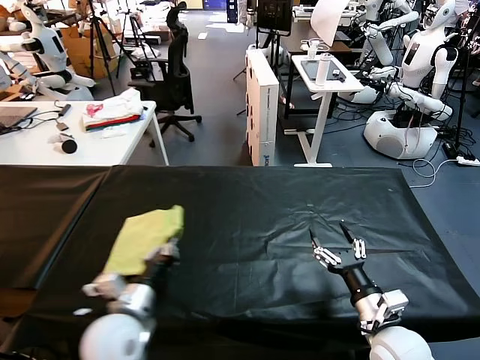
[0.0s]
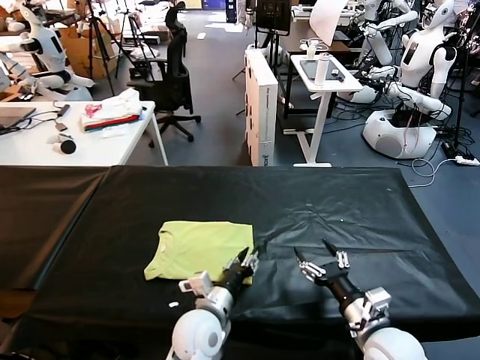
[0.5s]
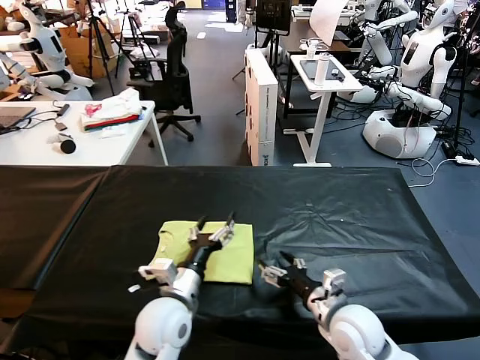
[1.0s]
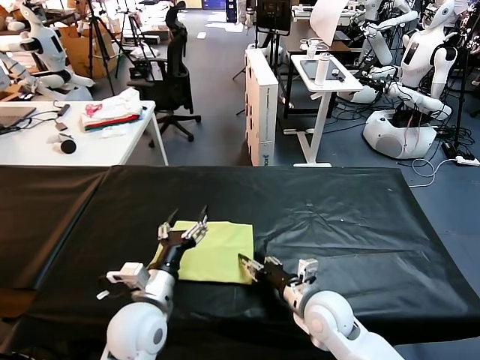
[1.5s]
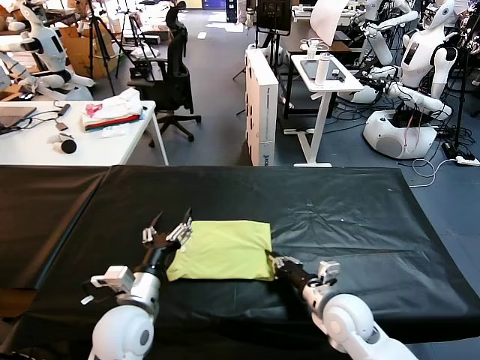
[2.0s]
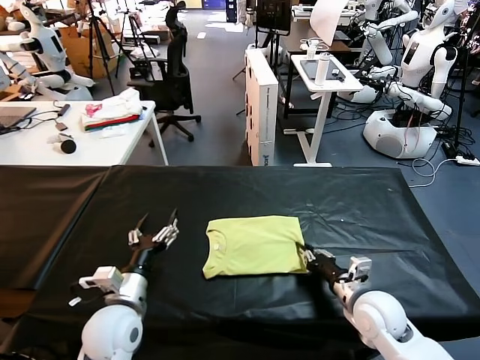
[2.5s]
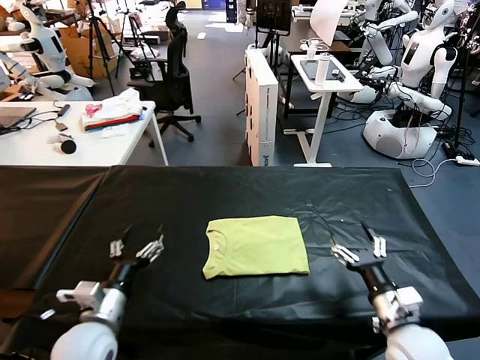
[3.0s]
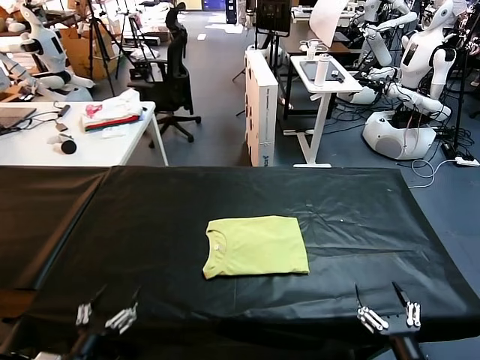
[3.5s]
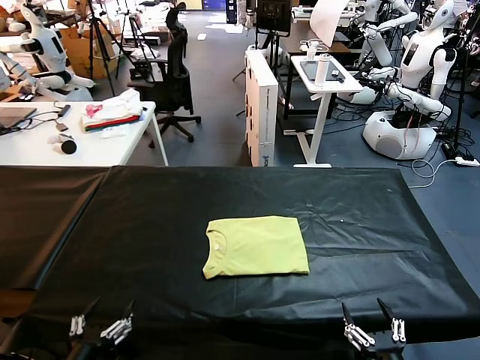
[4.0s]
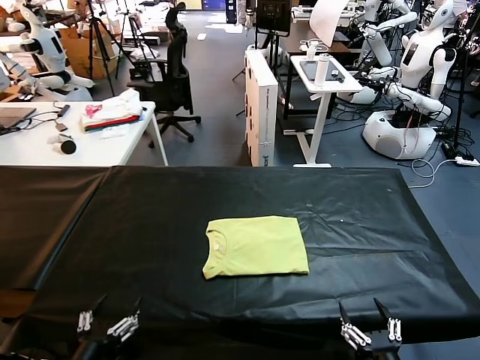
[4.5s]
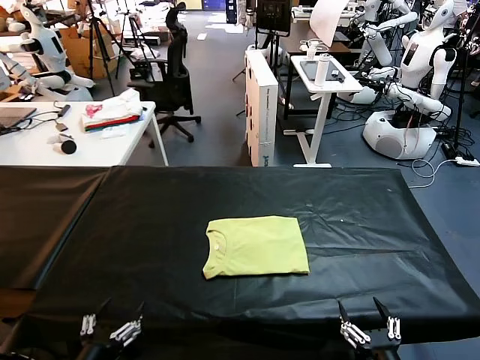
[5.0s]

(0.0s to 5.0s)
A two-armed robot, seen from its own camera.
Task of the whole recording: fold and organize the clothes.
Step, 1.0s - 2.5s: Drag the clothes to the center of the table.
0.0s - 2.5s: The left gripper reaches about 15 cm to the right, then returns, and opens. The right gripper heads forward, covering roughly 5 cm, goes to the left and returns, roughly 10 cm each way, and closes.
2.5s - 5.0s: The two grippers go about 20 cm backward. The right gripper opens up.

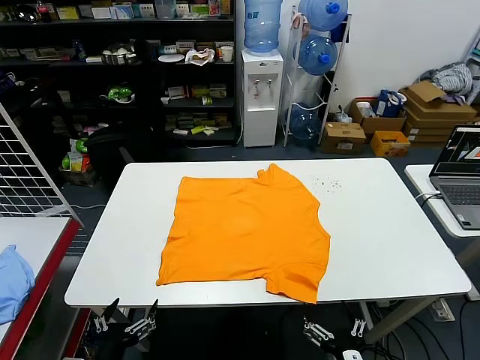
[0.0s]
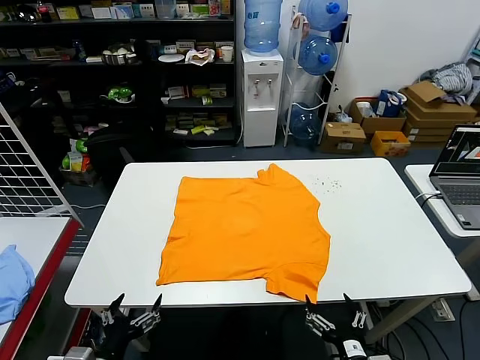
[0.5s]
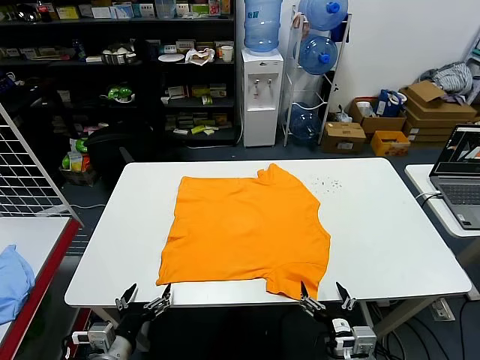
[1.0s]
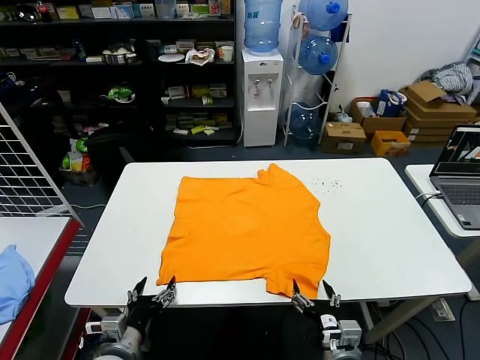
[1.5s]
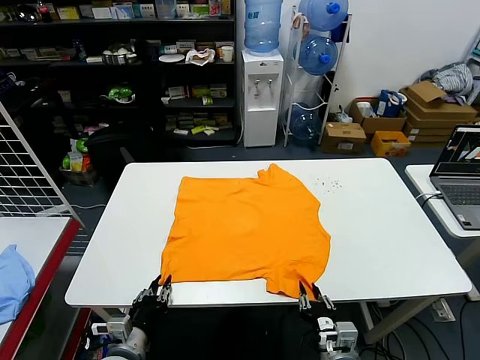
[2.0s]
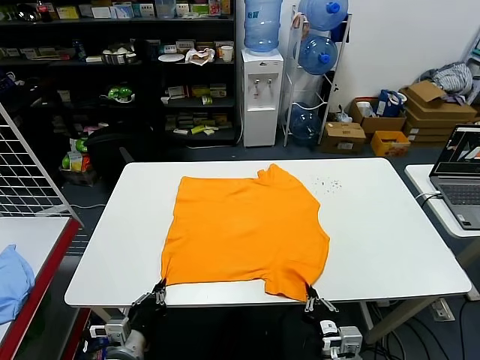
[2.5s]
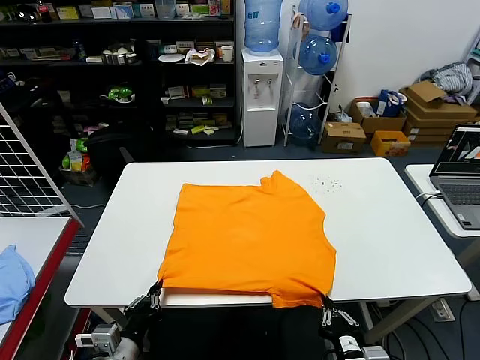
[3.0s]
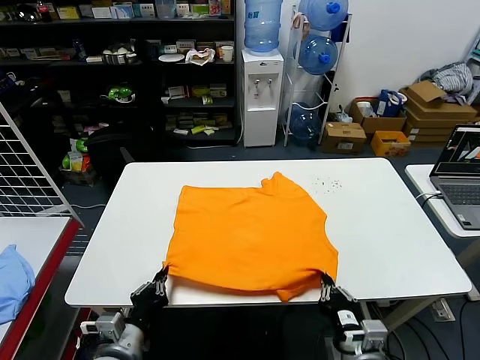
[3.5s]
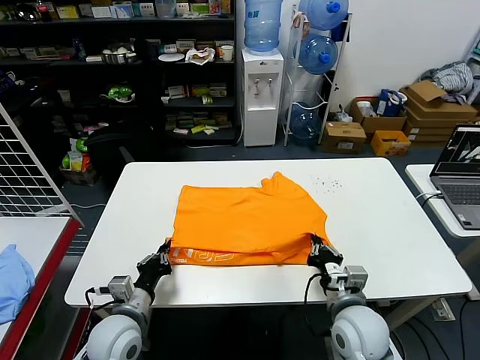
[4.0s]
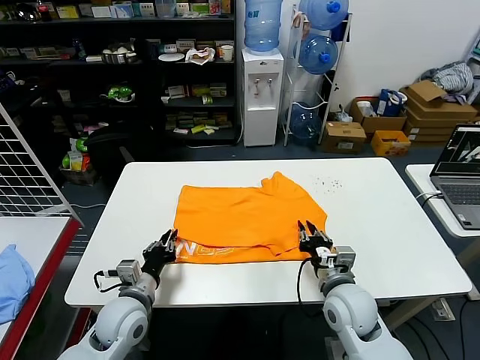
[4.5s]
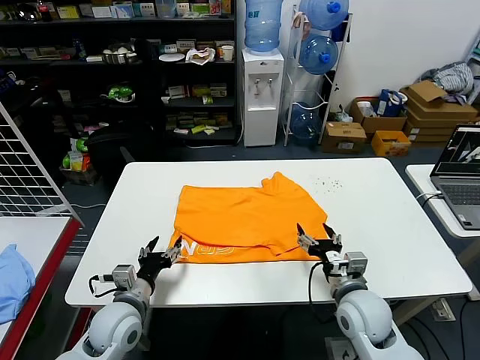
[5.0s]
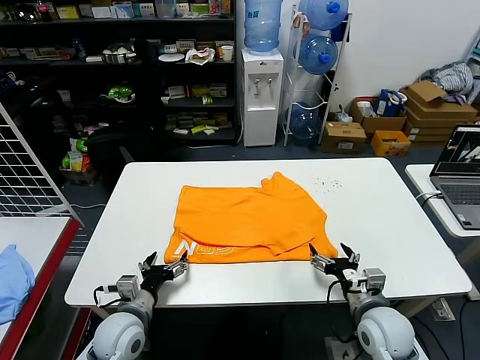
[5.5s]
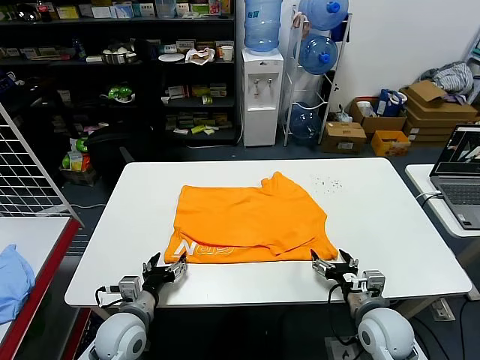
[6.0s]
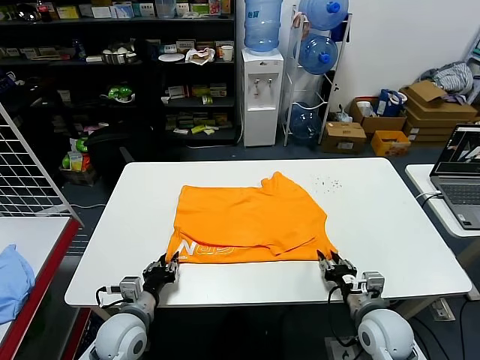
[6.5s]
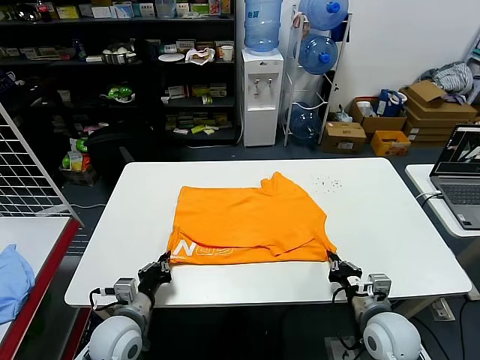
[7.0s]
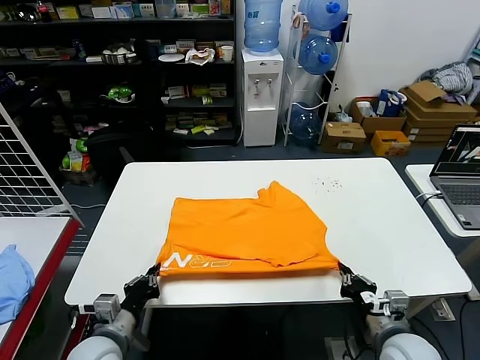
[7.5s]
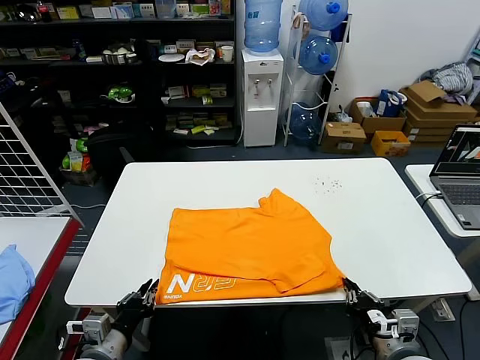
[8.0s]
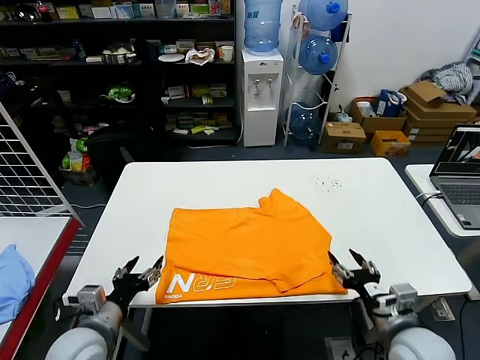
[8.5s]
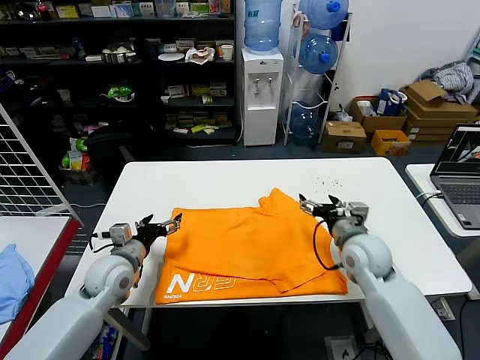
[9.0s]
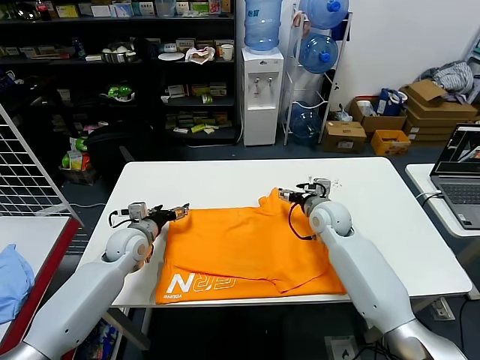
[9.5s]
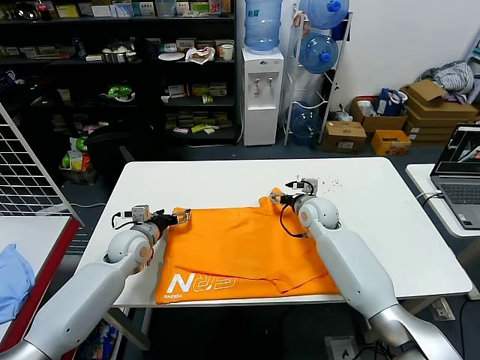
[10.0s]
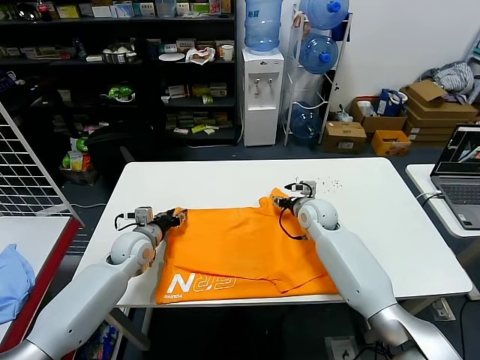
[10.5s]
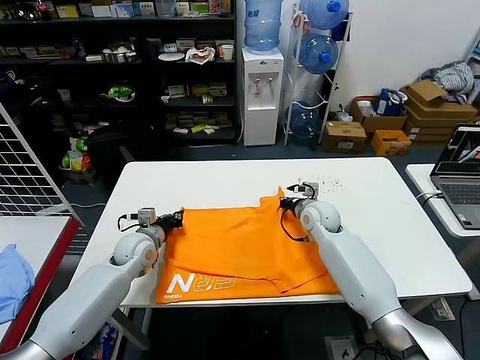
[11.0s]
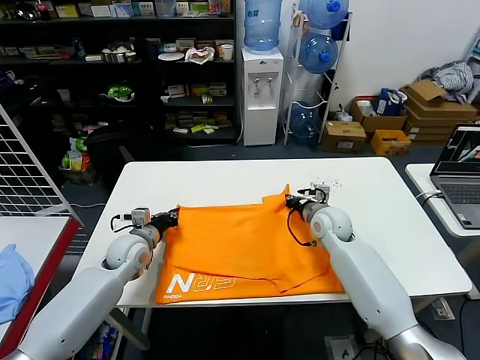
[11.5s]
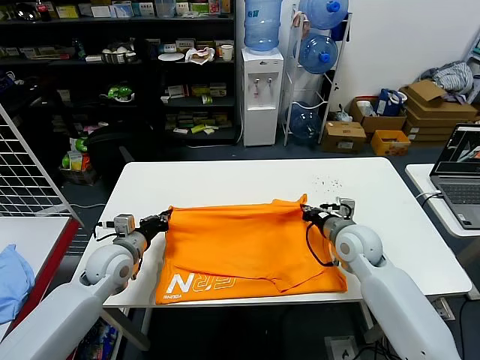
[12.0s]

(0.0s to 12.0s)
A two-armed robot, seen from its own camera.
Task of the whole recording: fold and organize the clothes.
Step, 0.0s - 2.0s: use both grippers simultaneously to clamp the lower edge of the clothing fabric.
Step, 2.5s - 4.5s: use both grippers to drag the lower edge of the fabric forward and fold it over the upper edge.
Step, 5.0s - 8.0s: Drag the clothes downward with both gripper.
Step, 8.5s - 10.5s: use both grippers simultaneously to clamp the upper edge of the clothing fabric.
2.0s - 4.0s: The right gripper heads forward and upward, covering about 10 cm, while the left gripper is displaced forward by some 5 cm.
4.0s - 6.0s: The right gripper shifts some 5 cm to the right, and opens its fingers; the left gripper opens its fingers.
6.0s - 8.0s: The left gripper shifts about 10 cm backward and upward, and closes, while the right gripper shifts about 10 cm backward, and closes its fingers.
8.0s - 10.0s: The grippers both shift forward by about 30 cm. The left gripper opens its fingers. The right gripper opens.
10.0s - 12.0s: The left gripper is displaced backward by some 5 cm, and closes up. The right gripper heads backward and to the right, covering about 15 cm, and closes.

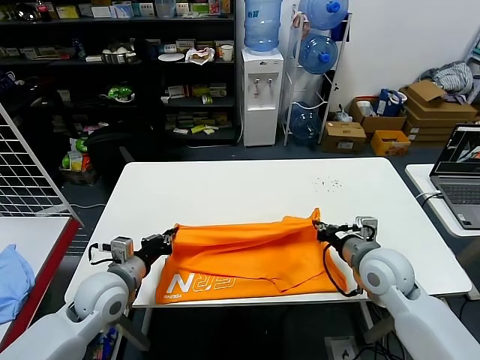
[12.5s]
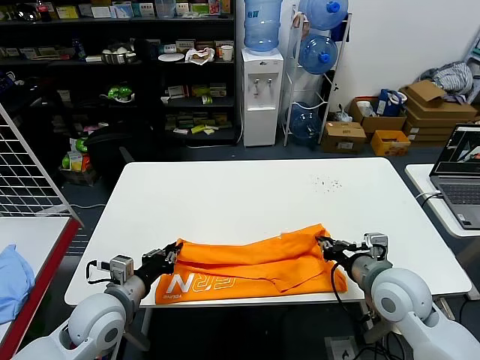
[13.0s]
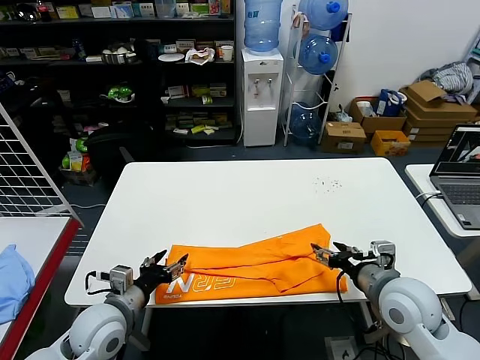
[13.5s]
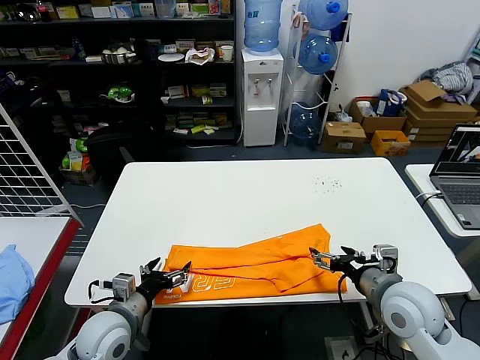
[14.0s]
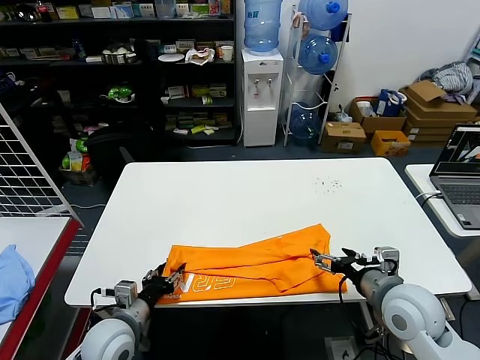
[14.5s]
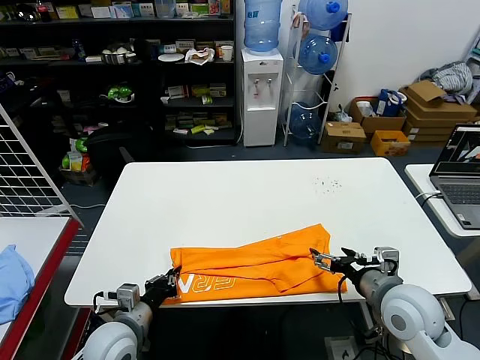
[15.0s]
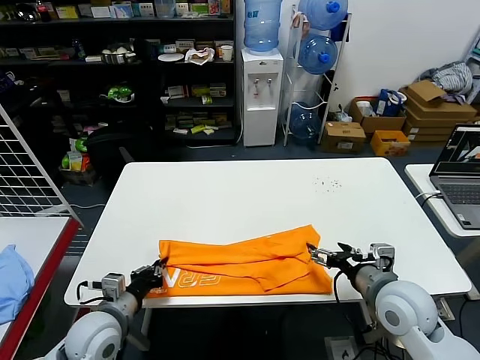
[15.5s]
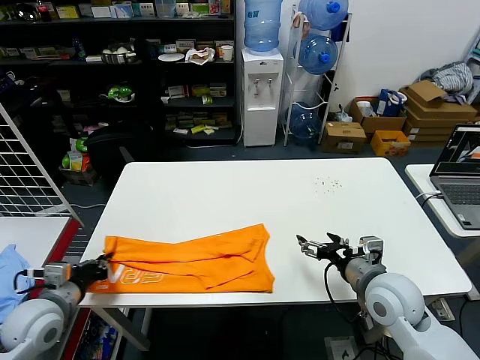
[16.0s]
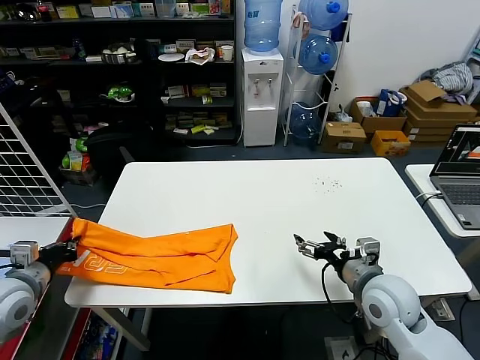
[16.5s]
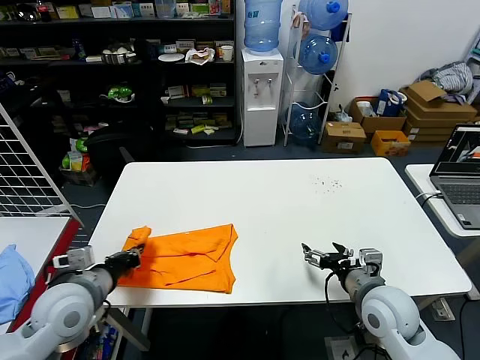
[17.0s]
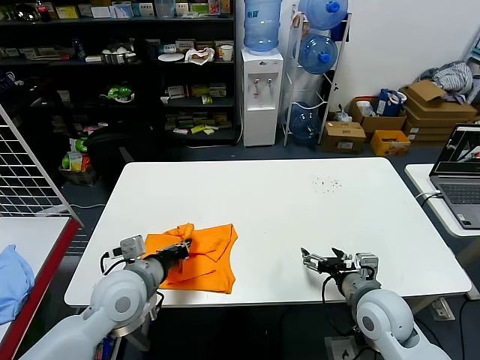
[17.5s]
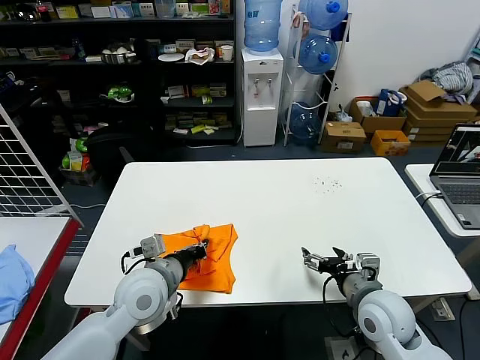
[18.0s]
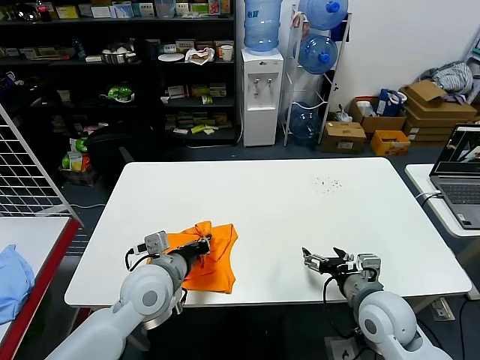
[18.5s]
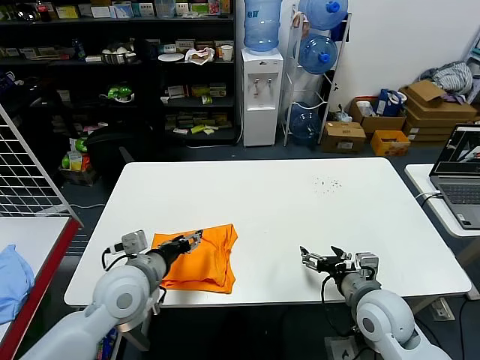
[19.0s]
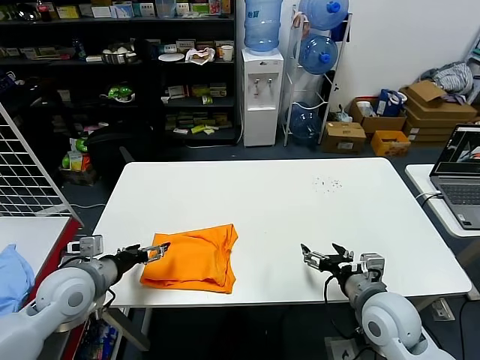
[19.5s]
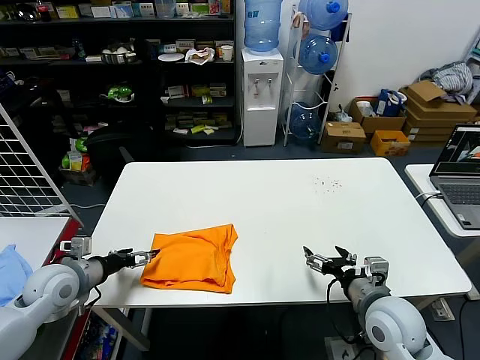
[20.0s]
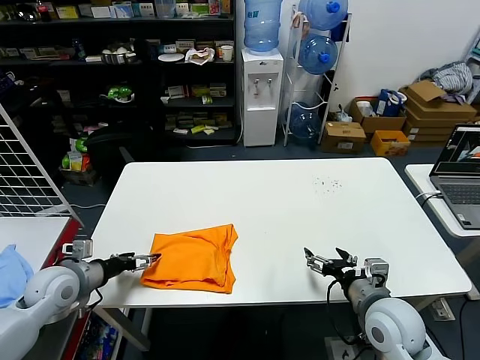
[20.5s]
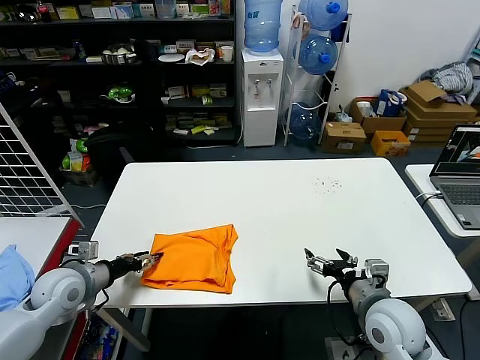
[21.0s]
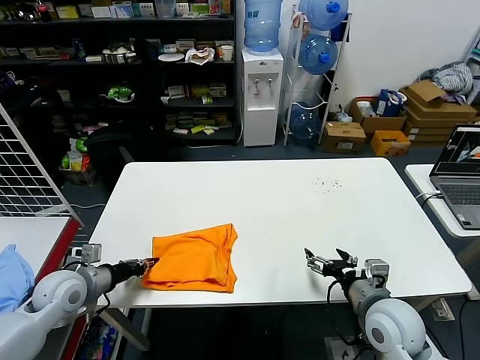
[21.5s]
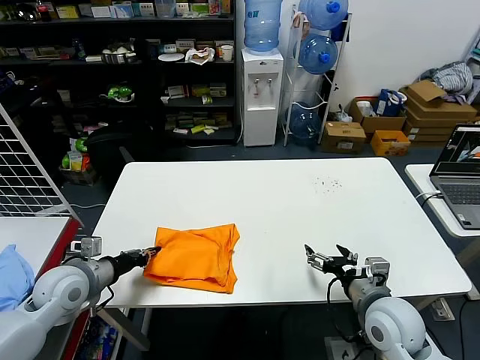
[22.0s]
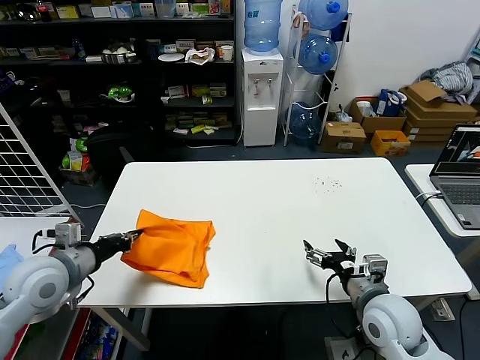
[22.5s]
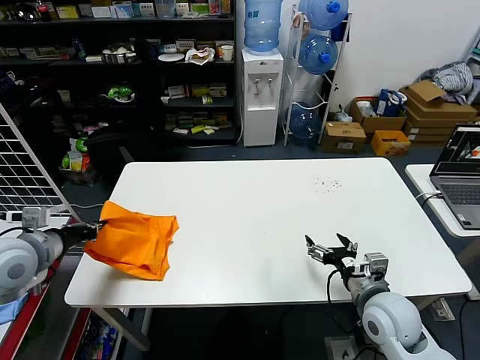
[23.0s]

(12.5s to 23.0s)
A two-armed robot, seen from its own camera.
Task of the whole recording: fold and organize the clothes.
Step, 13.5s - 14.5s: use the left gripper to clamp the left edge of the fabric.
Step, 15.0s - 18.5s: use the left gripper to drag the left edge of the fabric to the left and folds it over the right edge.
12.5s - 14.5s: The left gripper shifts about 10 cm backward and downward, and opens its fingers. The right gripper moves backward, approximately 5 cm, and opens.
14.5s - 16.5s: The left gripper travels to the left and upward by approximately 20 cm, and closes up.
16.5s - 19.0s: The left gripper goes about 25 cm to the right, and opens.
19.0s - 21.0s: The left gripper moves to the left, roughly 20 cm, and opens and closes again.
21.0s - 23.0s: The left gripper is displaced upward by some 15 cm, and closes.
